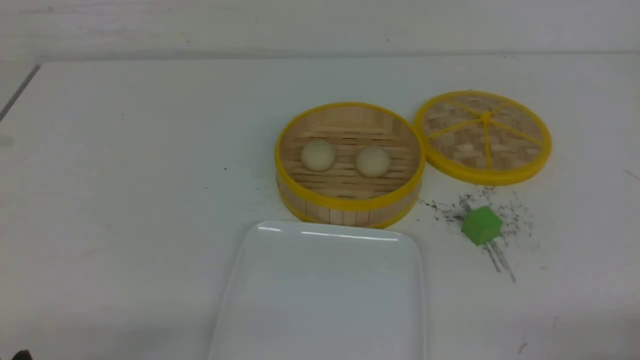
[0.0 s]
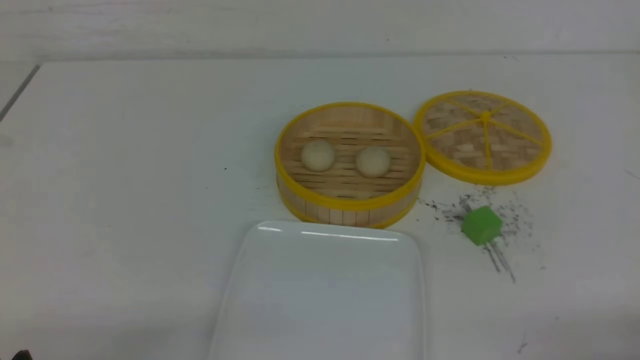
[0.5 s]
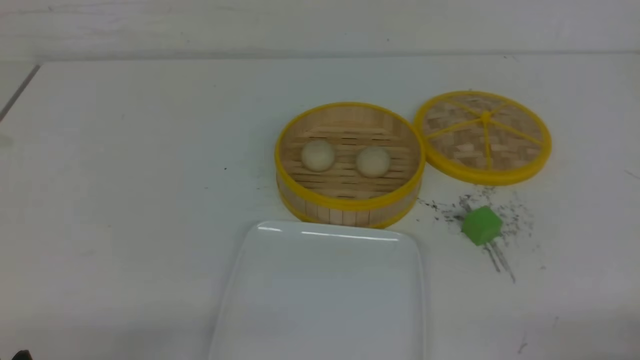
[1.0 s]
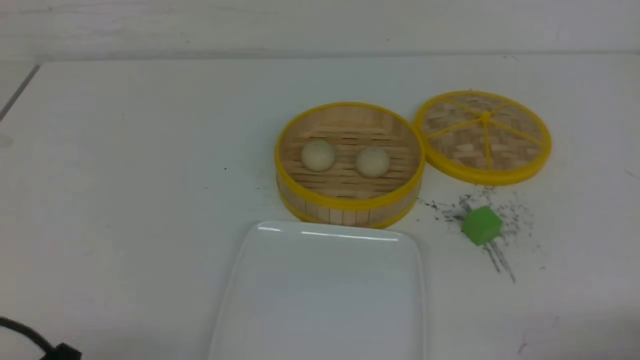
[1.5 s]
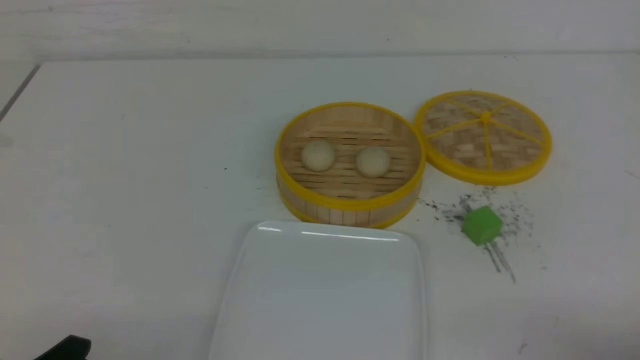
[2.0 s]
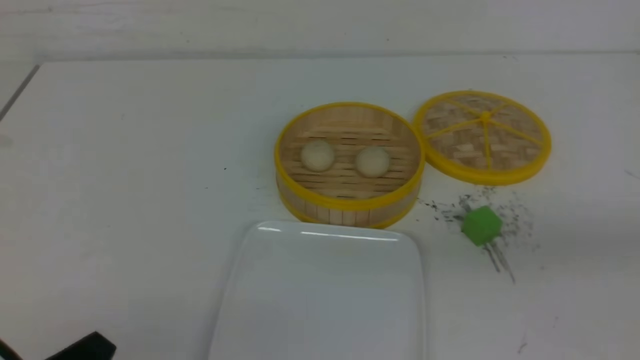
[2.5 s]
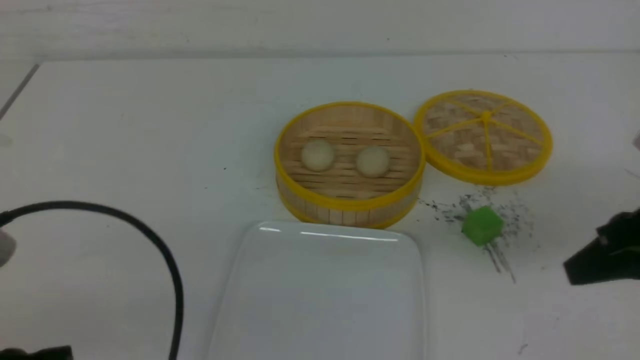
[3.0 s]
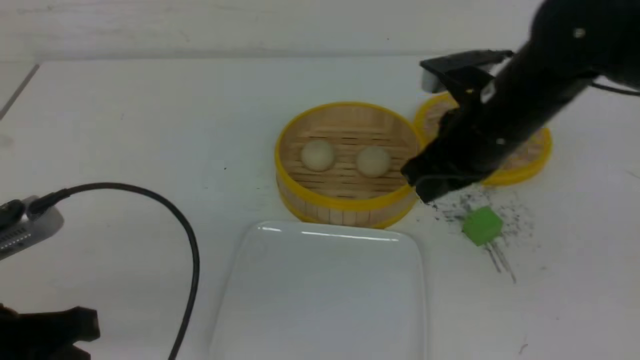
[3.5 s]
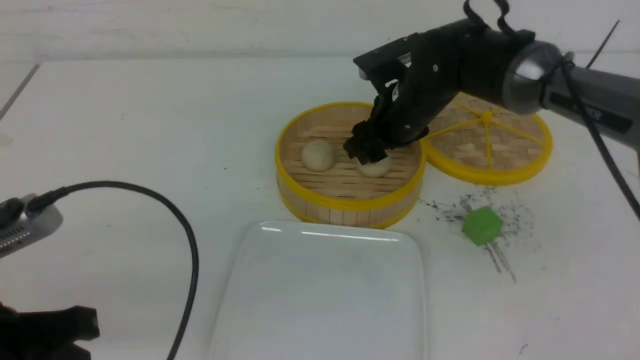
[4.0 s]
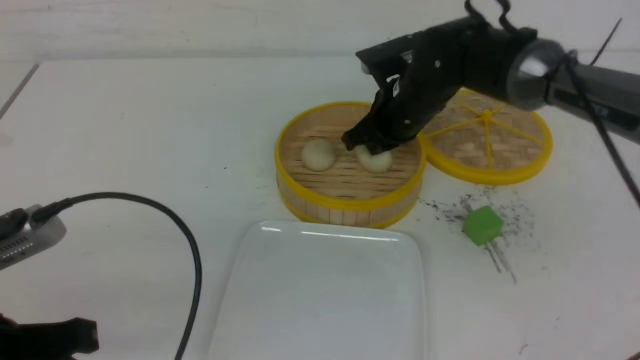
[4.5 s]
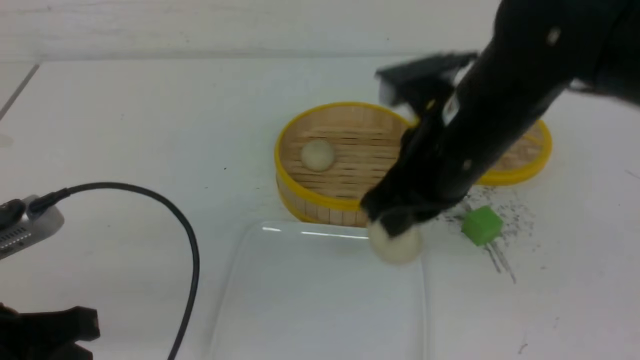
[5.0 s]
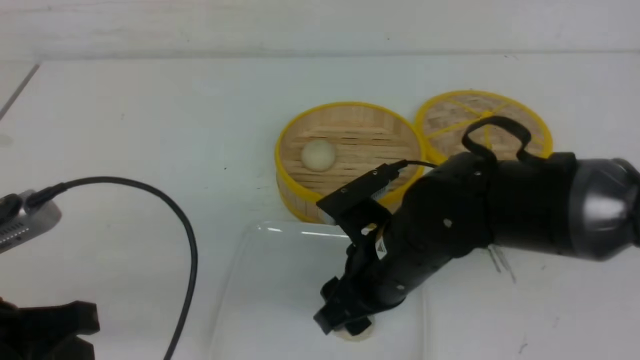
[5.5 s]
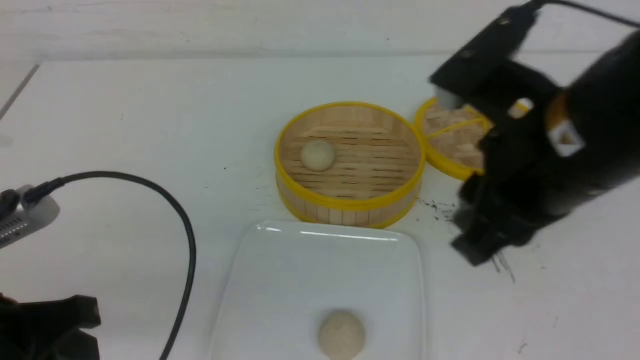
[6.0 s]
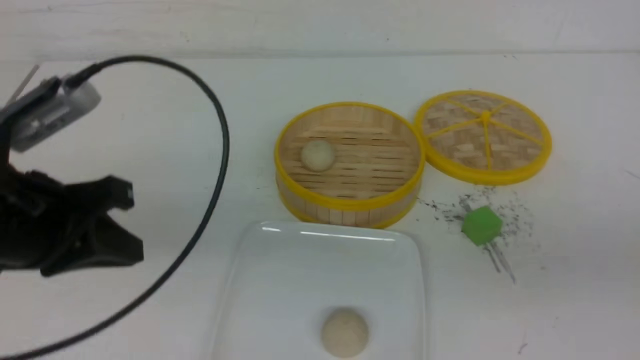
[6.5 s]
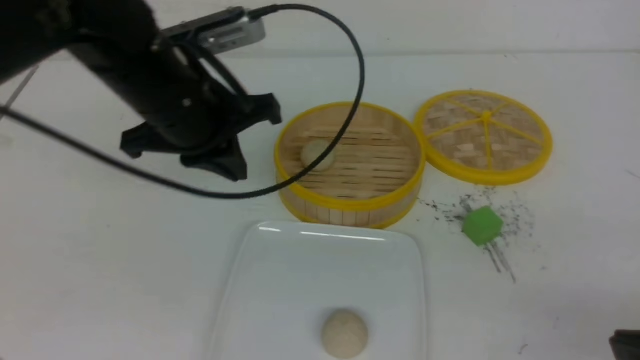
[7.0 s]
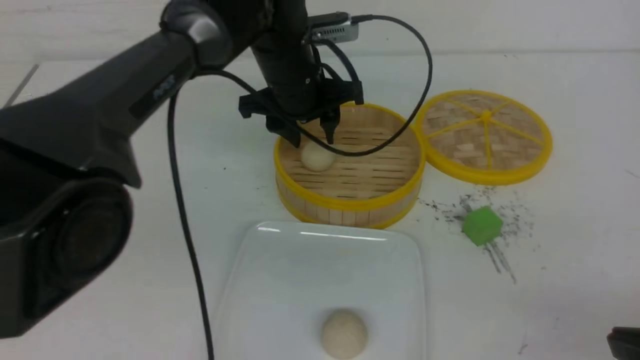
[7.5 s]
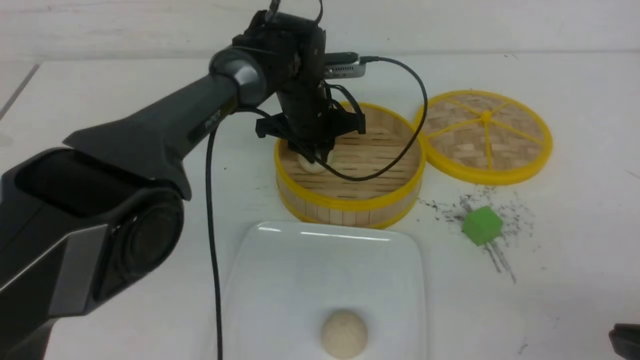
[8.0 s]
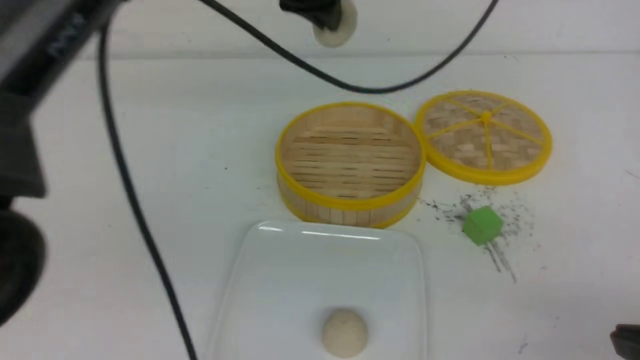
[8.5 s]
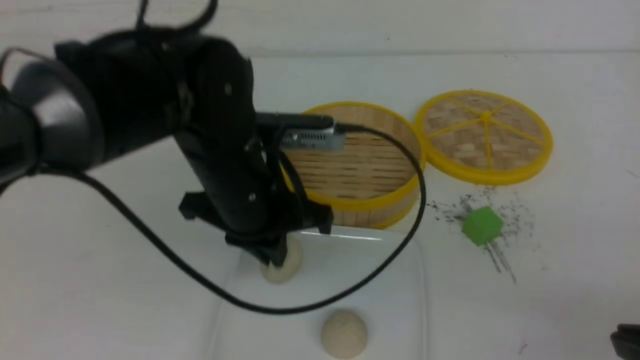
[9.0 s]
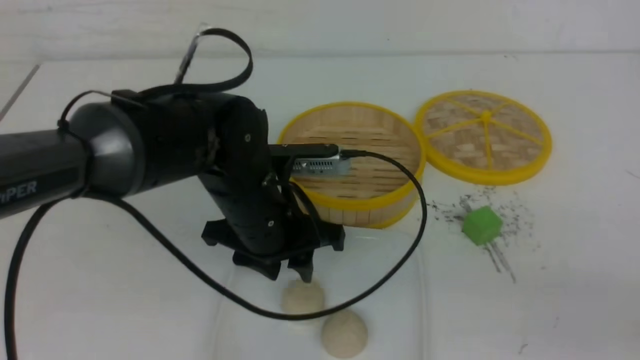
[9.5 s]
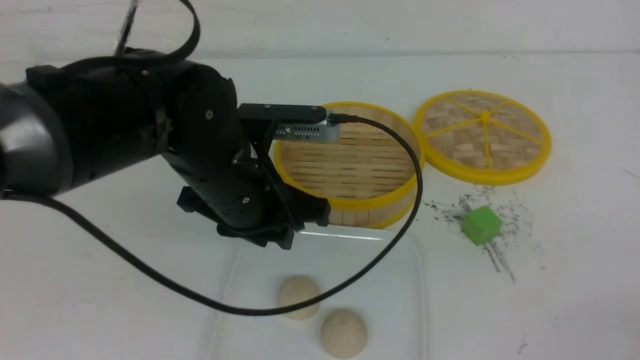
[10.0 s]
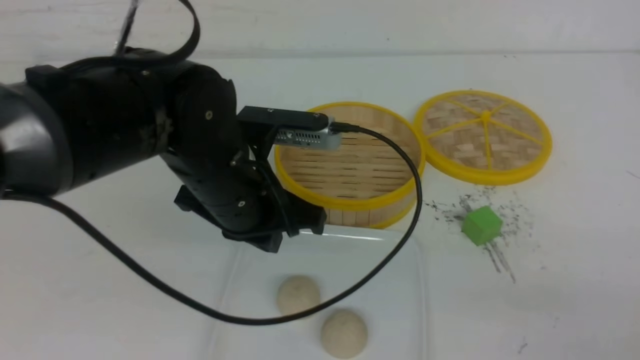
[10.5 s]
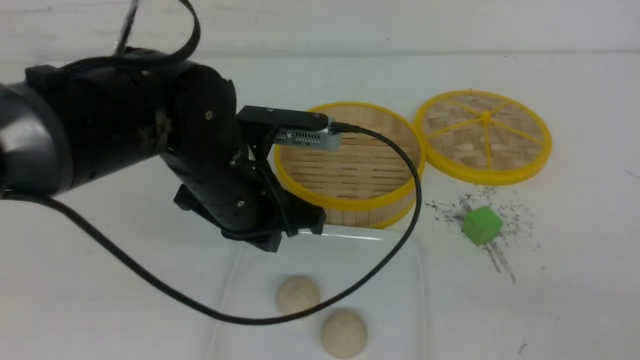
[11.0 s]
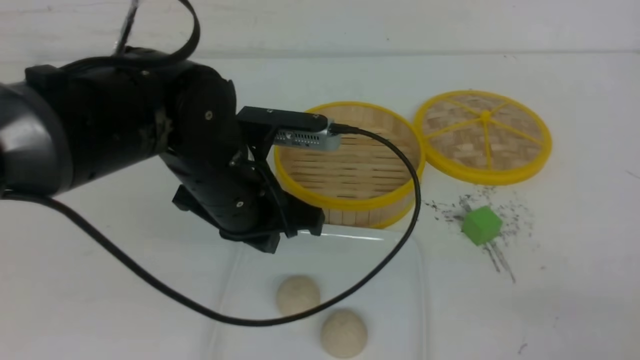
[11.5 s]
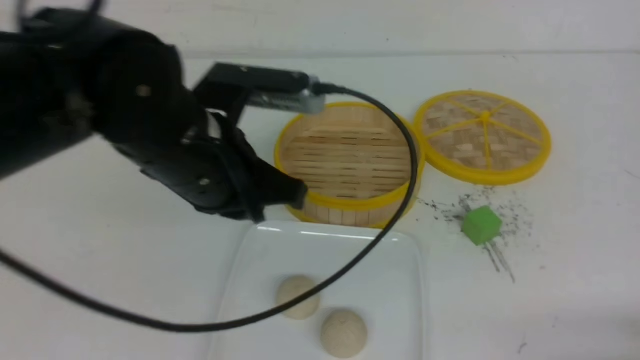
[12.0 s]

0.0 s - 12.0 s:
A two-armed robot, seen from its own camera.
Step, 0.0 s - 4.5 s: use the right arm to grab the steamed stuffed bun that is closest to it.
Step, 5.0 s - 5.5 s: use the right arm to put the steamed stuffed bun into the plate.
Step, 6.0 s - 8.0 s: use the left arm to grab the steamed stuffed bun that is closest to it.
Step, 8.5 s - 9.0 s: use the left arm to put the steamed stuffed bun into the plate.
2.0 s - 4.0 s: The left gripper is displaced upward and forward by roughly 10 cm, and closes. Meanwhile the right gripper is displaced forward and to the left by about 40 cm, and opens.
4.0 s - 6.0 s: The right gripper shifts some 30 cm backward and upward, and closes.
6.0 s - 8.0 s: The right gripper shifts approximately 20 cm to the right, backward and downward, and closes up. Meanwhile the left gripper moves forward and to the right, some 40 cm, and opens, then closes once more.
8.0 s - 10.0 s: The right gripper goes about 10 cm backward, to the right and upward. Meanwhile the left gripper shifts approximately 20 cm backward, and closes, then opens again.
10.0 s - 12.0 s: The right gripper moves downward, about 15 cm. The left gripper travels upward by about 5 cm, and closes its fingers.

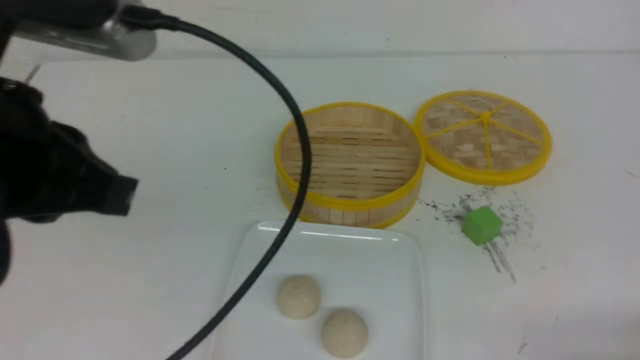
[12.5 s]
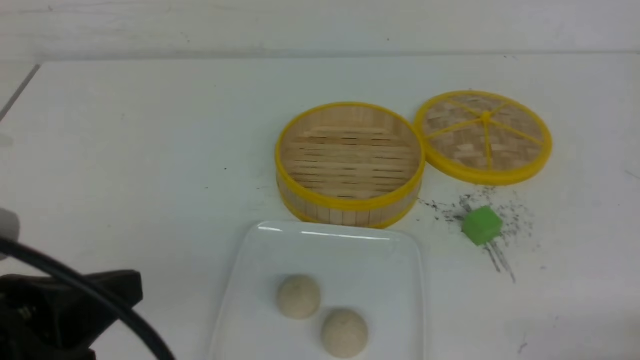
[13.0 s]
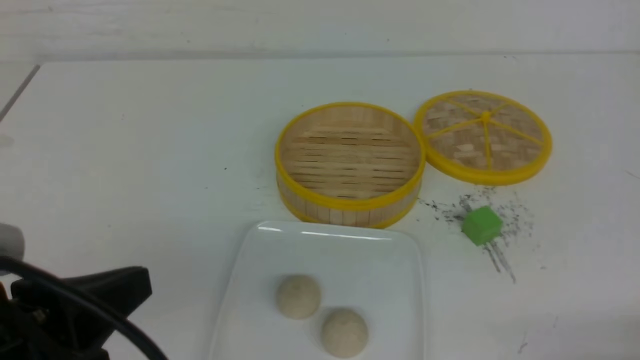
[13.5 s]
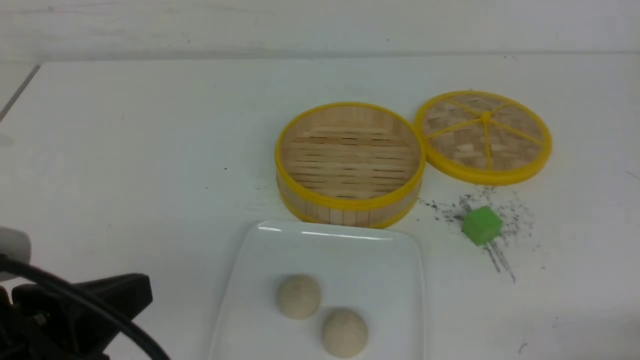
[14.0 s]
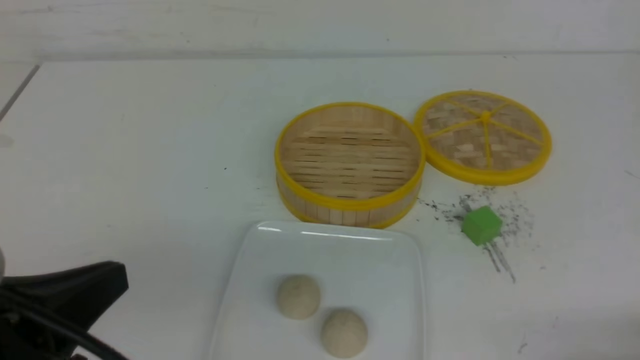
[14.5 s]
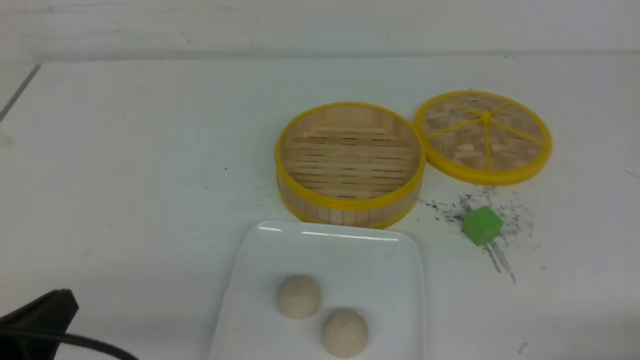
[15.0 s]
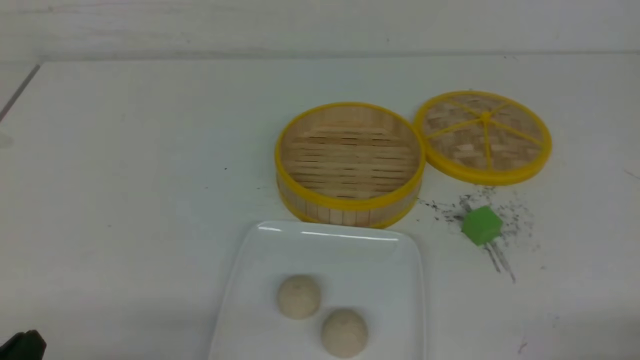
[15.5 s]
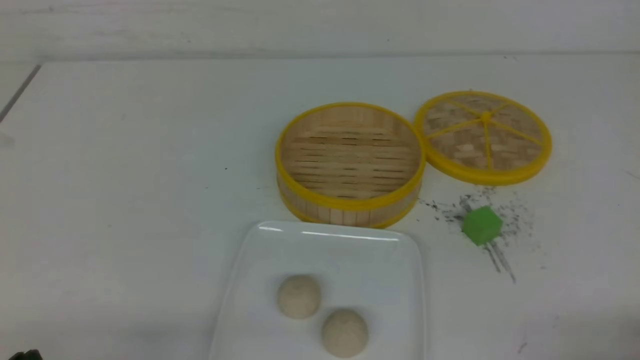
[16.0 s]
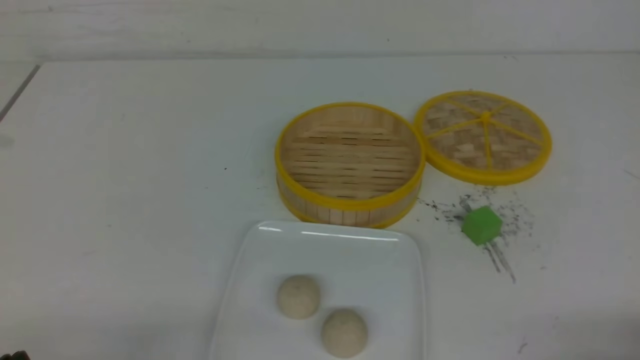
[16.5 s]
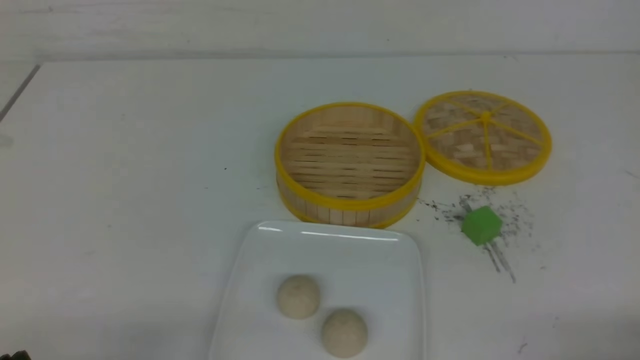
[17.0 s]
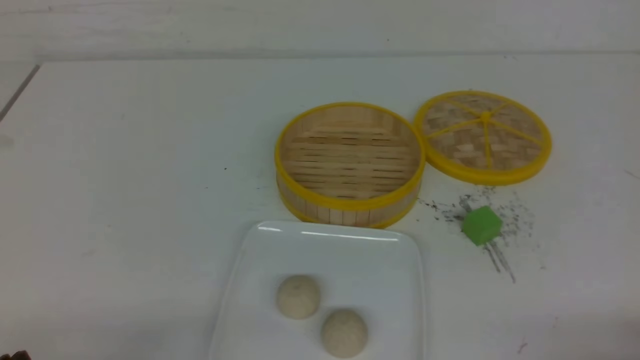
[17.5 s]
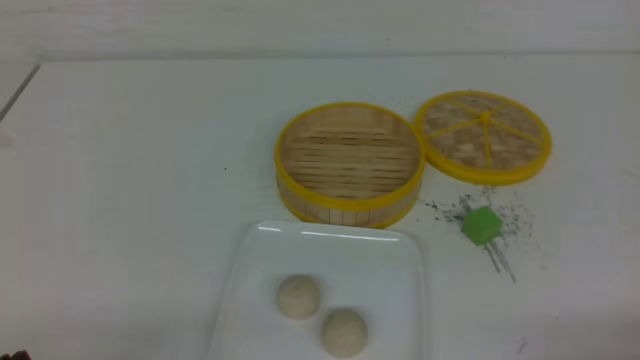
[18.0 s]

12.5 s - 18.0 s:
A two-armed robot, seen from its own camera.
12.5 s - 14.5 s: The left gripper heads downward and backward, covering about 10 cm.
14.5 s - 16.0 s: The left gripper shifts some 15 cm downward.
16.0 s - 18.0 s: Neither gripper changes place.

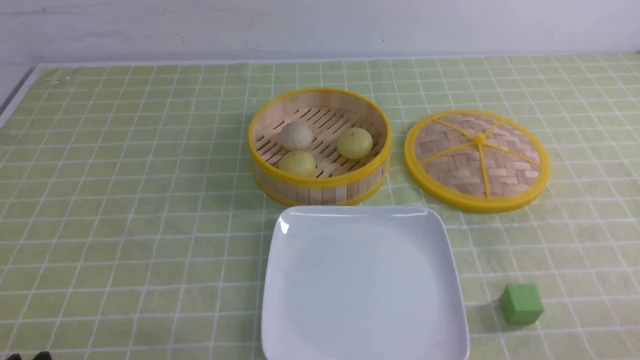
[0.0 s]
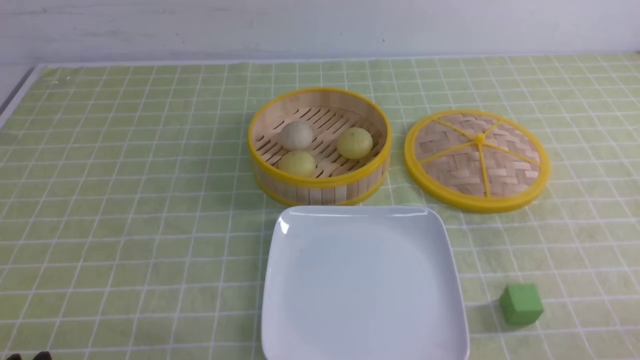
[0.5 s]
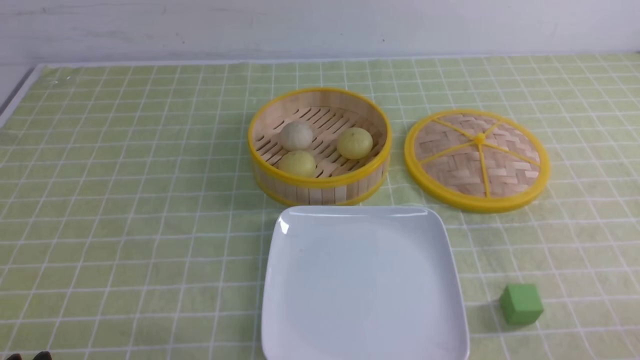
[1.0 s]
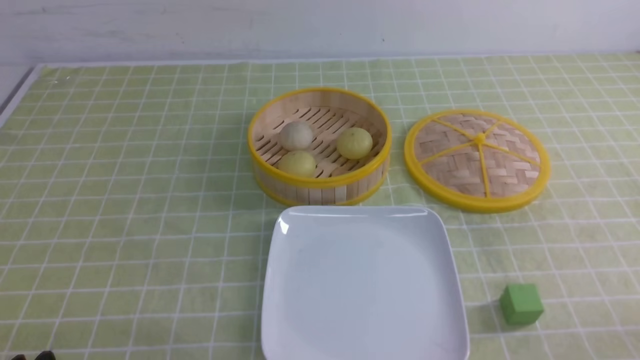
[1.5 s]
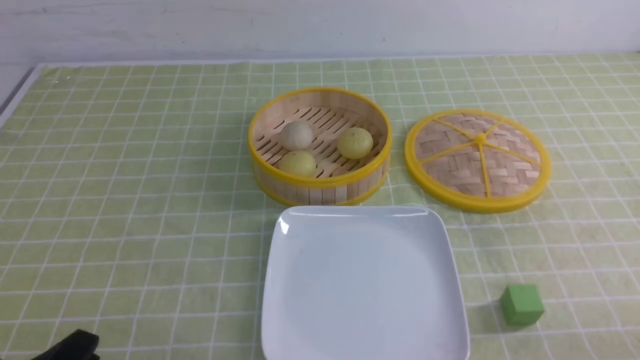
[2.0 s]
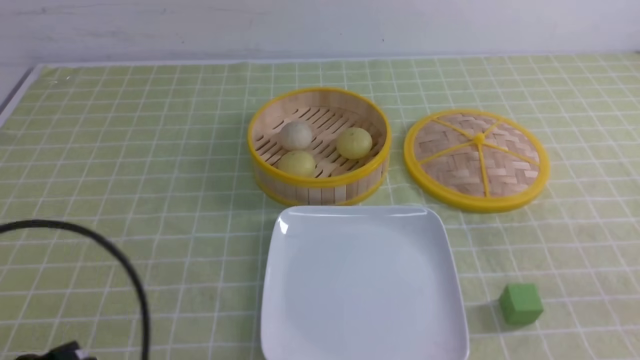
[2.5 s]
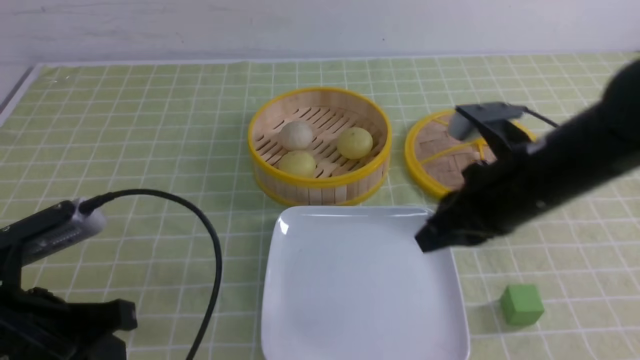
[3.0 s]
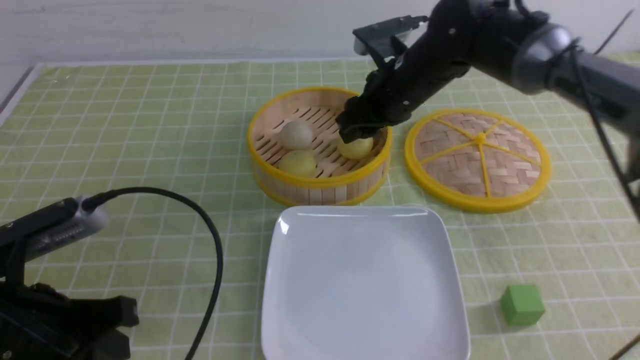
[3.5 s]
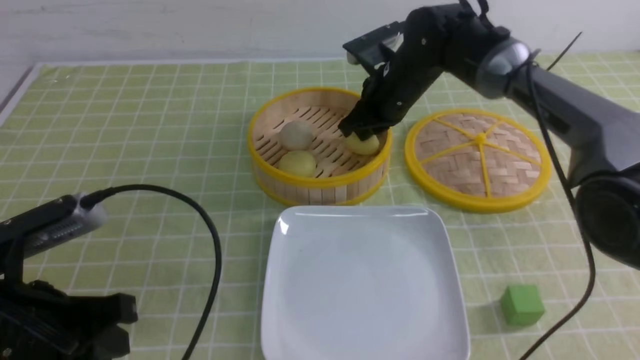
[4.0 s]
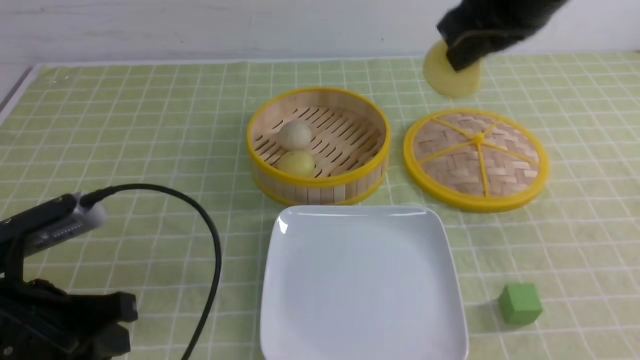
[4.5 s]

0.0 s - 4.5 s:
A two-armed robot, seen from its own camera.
Step, 0.0 s - 3.5 s: use the right arm to grab the steamed stuffed bun that is closest to it.
2.0 s - 4.5 s: The left gripper shifts roughly 10 cm forward and upward; the right gripper heads forward, upward and to the left, covering about 35 cm, and closes its fingers.
